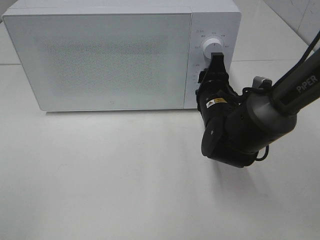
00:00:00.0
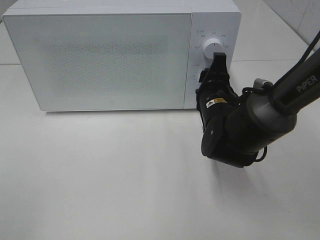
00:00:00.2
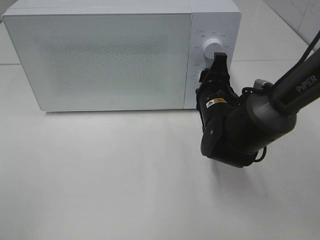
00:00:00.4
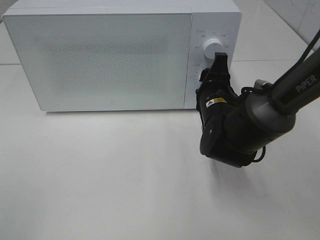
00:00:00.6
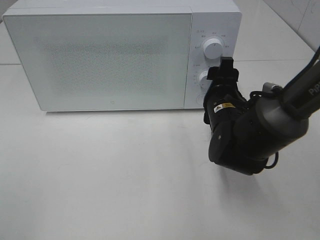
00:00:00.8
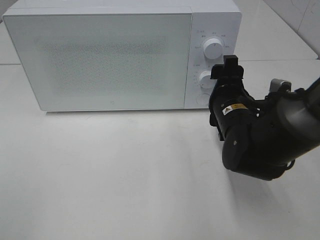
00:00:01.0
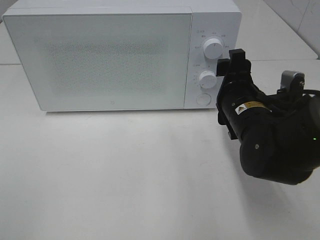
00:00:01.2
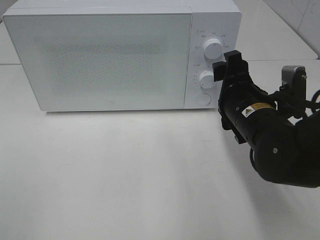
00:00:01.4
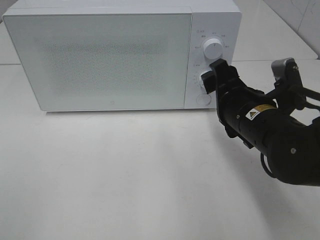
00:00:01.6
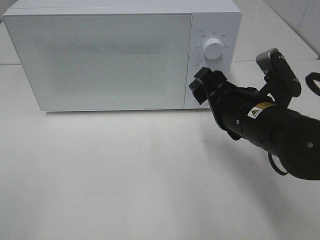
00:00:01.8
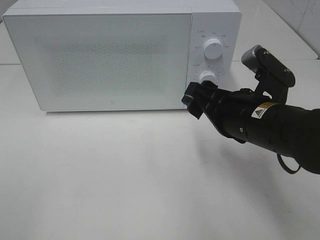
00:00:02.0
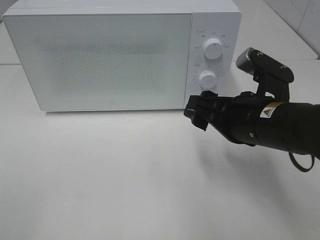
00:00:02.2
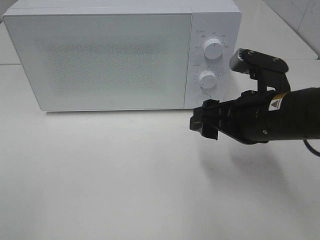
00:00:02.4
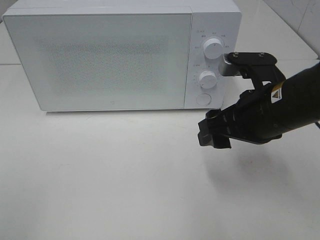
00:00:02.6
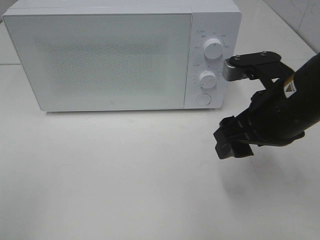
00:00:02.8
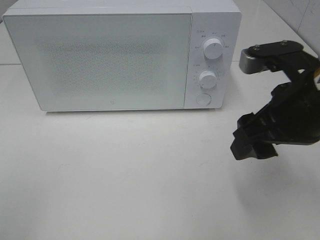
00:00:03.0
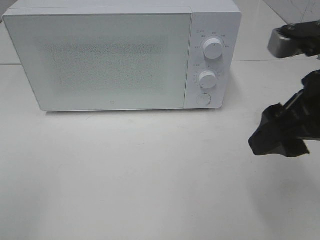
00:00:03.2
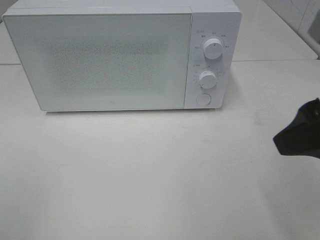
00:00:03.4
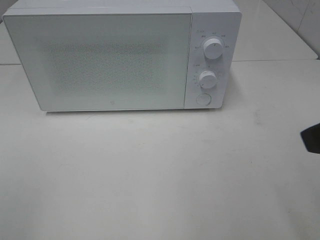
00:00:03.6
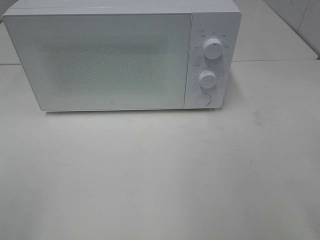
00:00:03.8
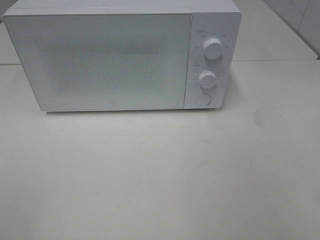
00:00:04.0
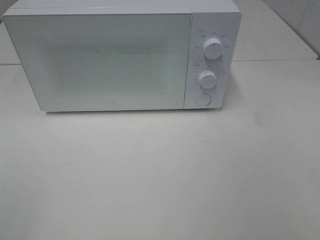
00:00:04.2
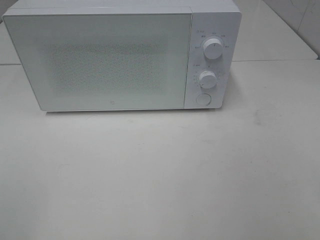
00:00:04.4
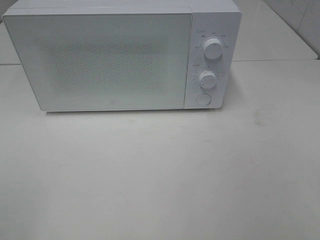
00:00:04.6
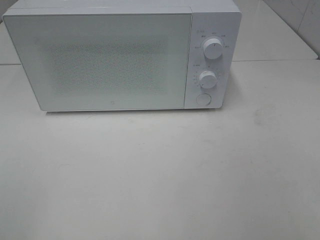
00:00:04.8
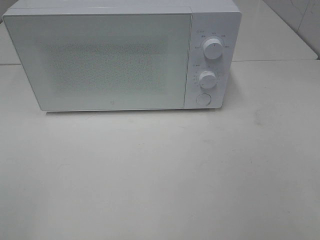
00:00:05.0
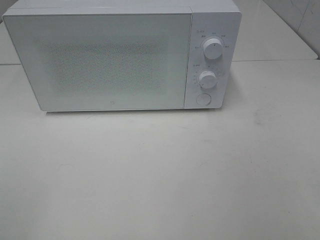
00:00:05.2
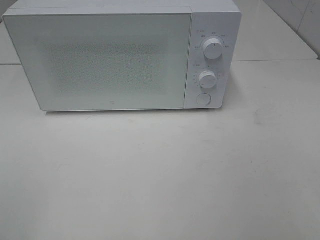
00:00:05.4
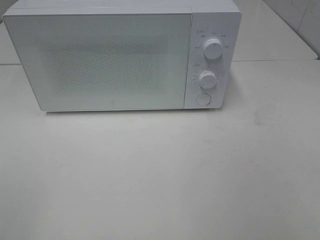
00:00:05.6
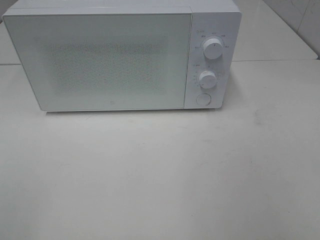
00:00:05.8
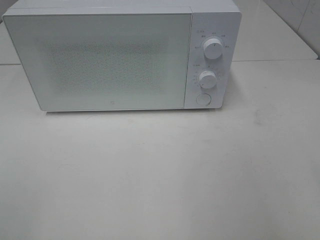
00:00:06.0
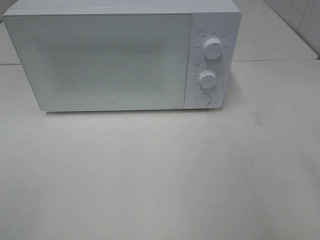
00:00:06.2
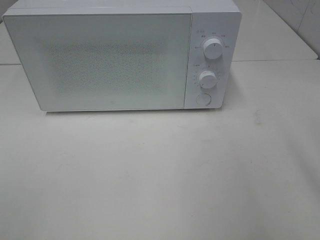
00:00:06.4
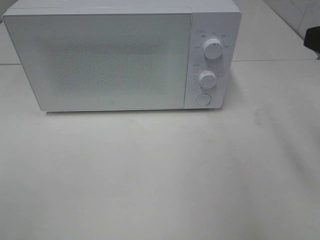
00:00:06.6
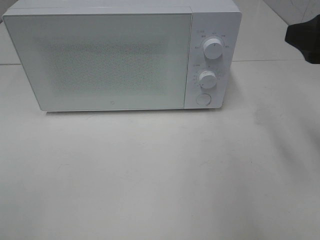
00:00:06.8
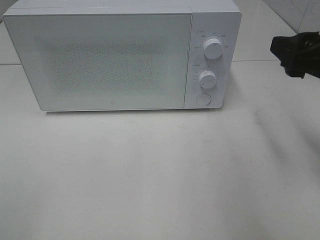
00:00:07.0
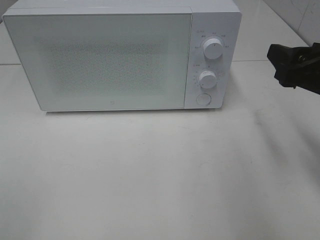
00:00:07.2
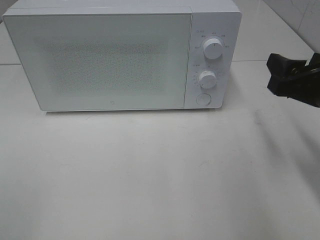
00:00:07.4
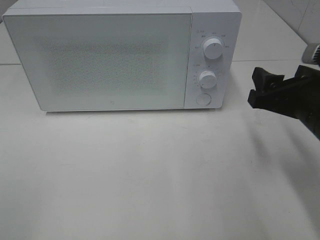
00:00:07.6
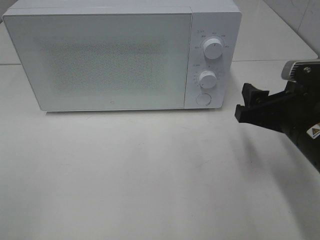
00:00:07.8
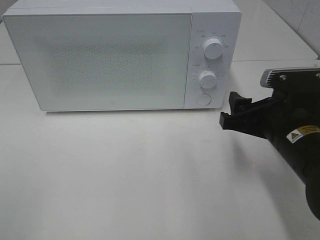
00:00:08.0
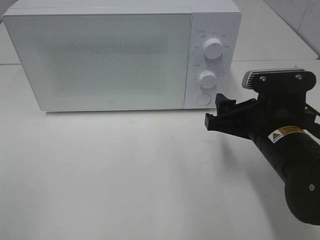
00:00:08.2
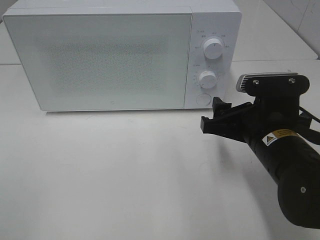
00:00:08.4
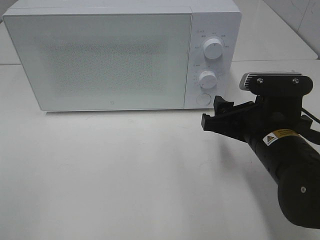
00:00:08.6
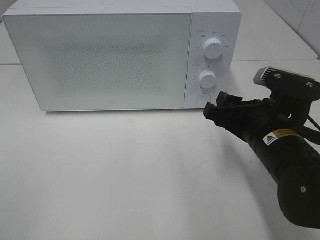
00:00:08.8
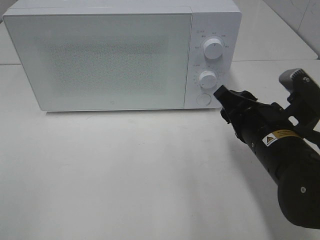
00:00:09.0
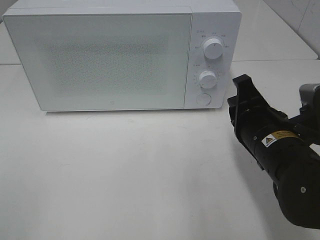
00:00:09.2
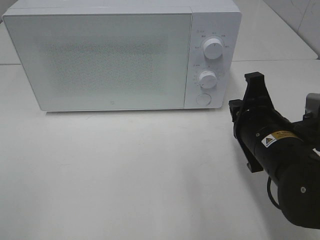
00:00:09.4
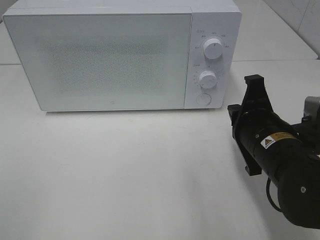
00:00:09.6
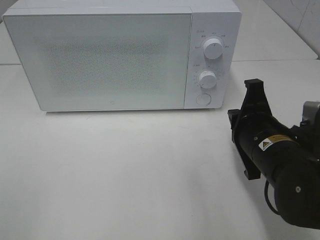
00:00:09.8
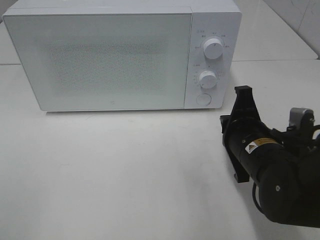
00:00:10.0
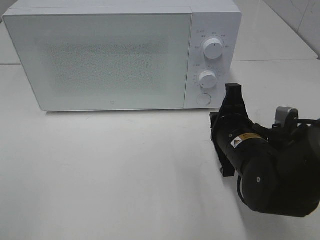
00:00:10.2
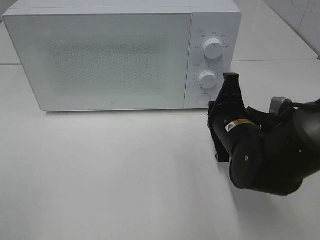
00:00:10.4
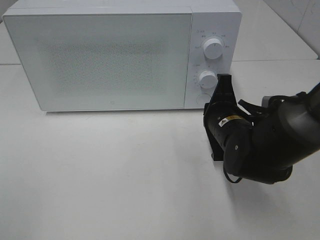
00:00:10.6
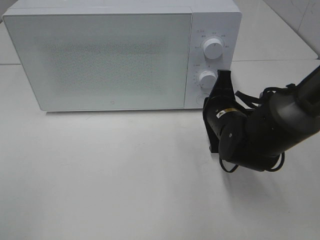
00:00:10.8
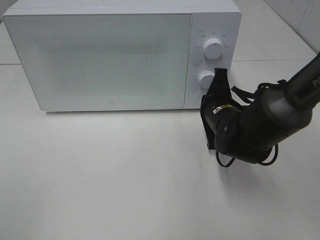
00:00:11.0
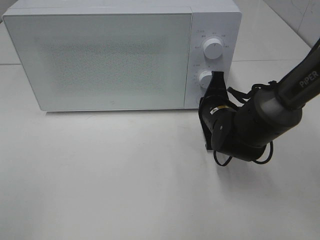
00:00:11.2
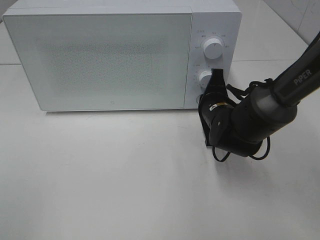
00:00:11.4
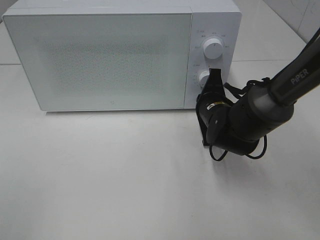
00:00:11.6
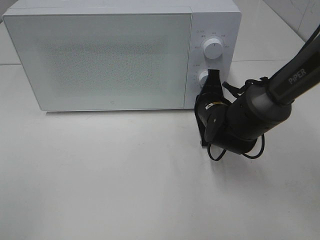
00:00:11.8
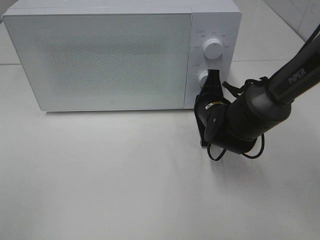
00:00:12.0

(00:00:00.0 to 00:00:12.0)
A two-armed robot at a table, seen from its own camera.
Task of the whole recording: Heat the burger.
00:00:00.0 - 00:00:01.6: The right gripper goes roughly 5 cm backward, and opens up.
00:00:01.6 - 00:00:03.0: The right gripper goes approximately 10 cm upward and backward.
00:00:03.0 - 00:00:04.4: The right gripper heads backward and to the right, covering some 25 cm.
00:00:06.0 - 00:00:07.6: The right gripper is displaced forward and downward by some 20 cm.
00:00:07.6 - 00:00:09.0: The right gripper moves to the left, about 5 cm.
00:00:09.0 - 00:00:10.4: The right gripper changes place by some 5 cm, and closes up.
00:00:10.4 - 00:00:12.0: The right gripper moves forward, approximately 10 cm.

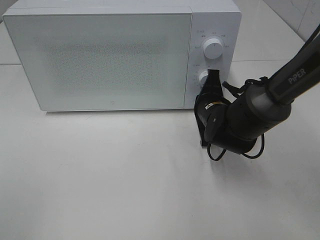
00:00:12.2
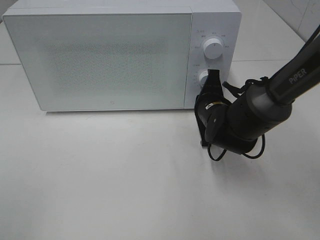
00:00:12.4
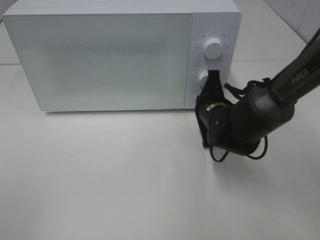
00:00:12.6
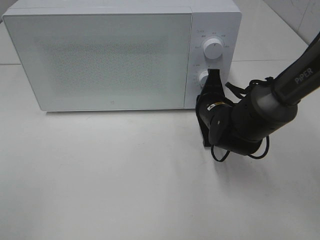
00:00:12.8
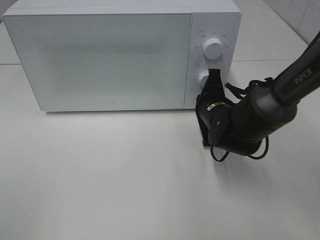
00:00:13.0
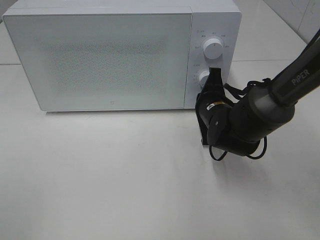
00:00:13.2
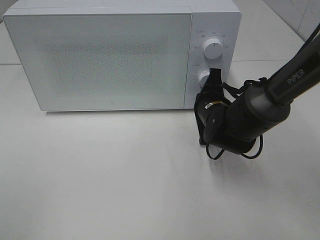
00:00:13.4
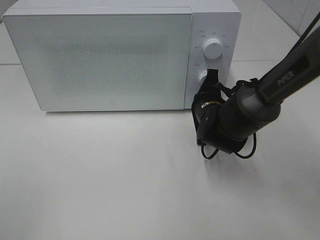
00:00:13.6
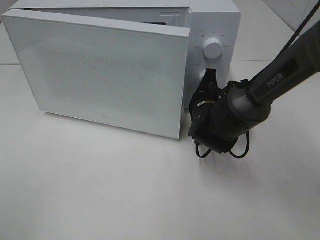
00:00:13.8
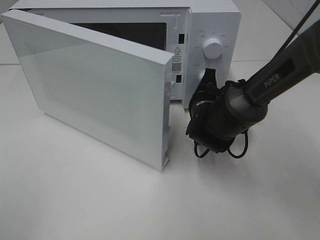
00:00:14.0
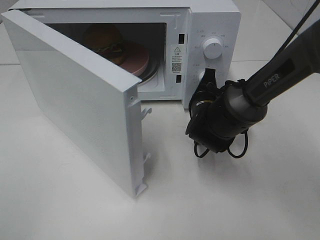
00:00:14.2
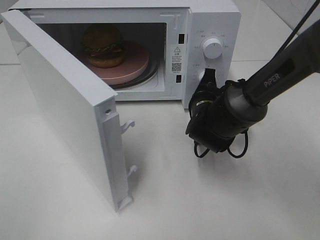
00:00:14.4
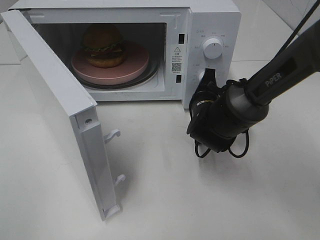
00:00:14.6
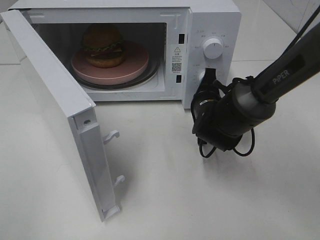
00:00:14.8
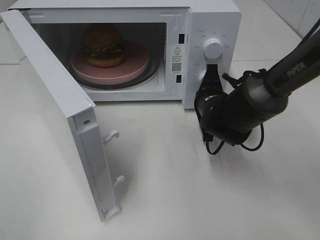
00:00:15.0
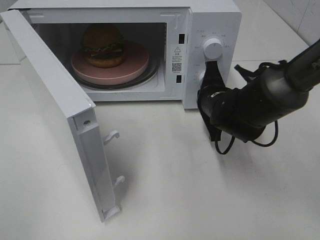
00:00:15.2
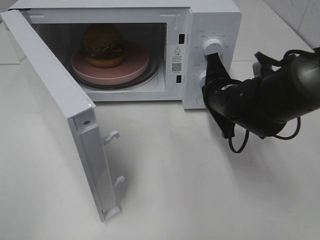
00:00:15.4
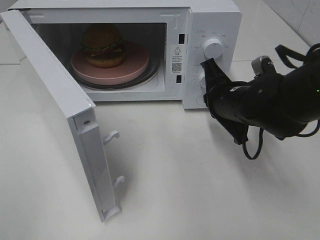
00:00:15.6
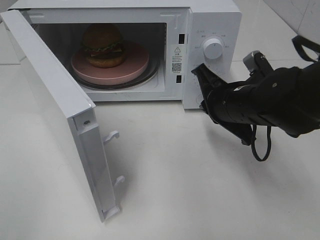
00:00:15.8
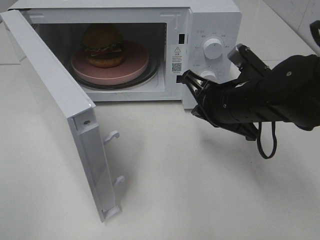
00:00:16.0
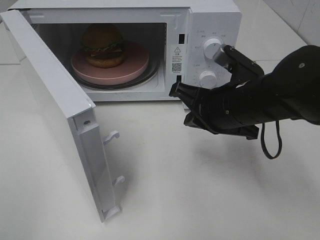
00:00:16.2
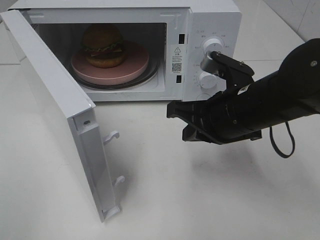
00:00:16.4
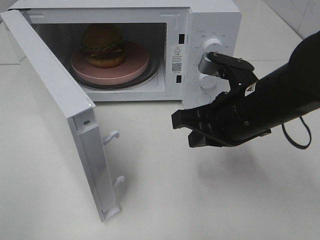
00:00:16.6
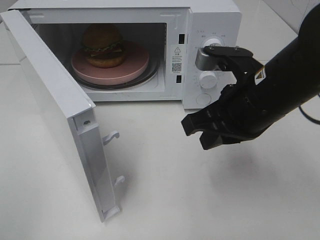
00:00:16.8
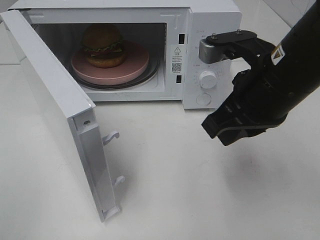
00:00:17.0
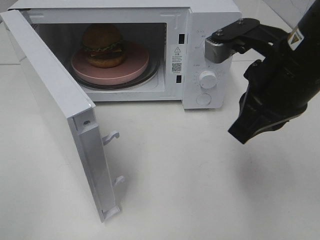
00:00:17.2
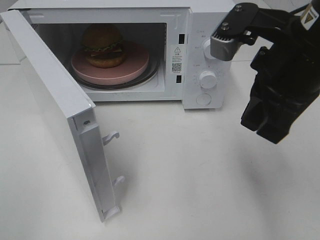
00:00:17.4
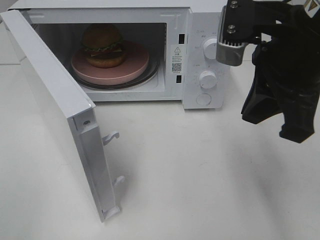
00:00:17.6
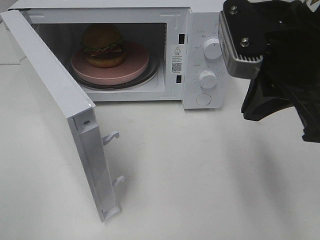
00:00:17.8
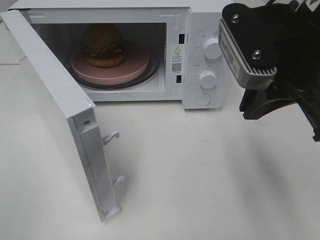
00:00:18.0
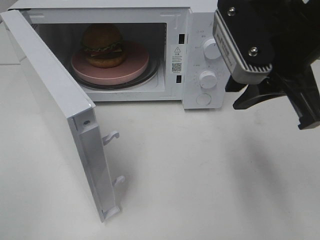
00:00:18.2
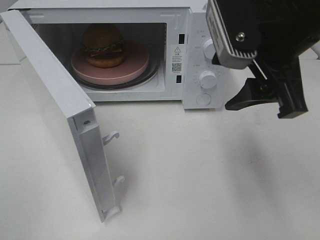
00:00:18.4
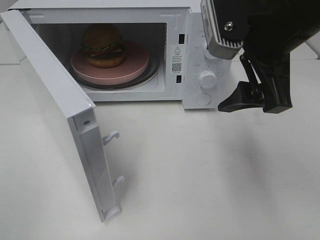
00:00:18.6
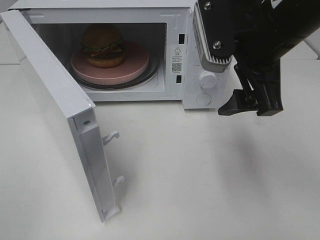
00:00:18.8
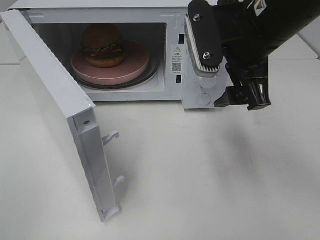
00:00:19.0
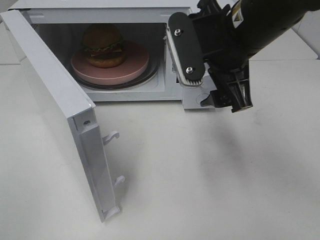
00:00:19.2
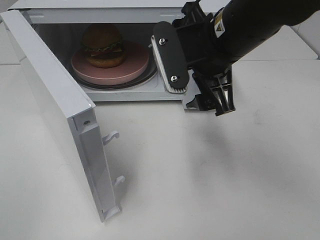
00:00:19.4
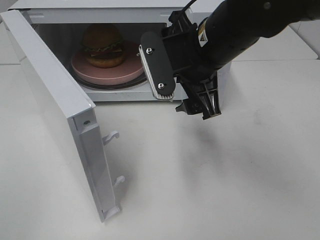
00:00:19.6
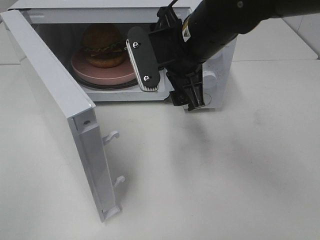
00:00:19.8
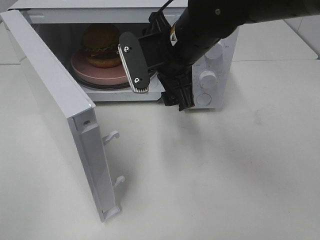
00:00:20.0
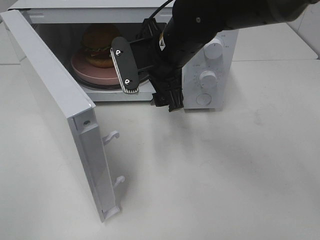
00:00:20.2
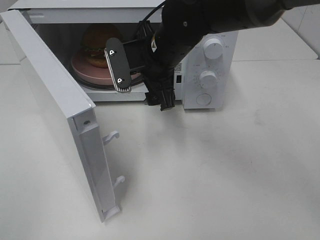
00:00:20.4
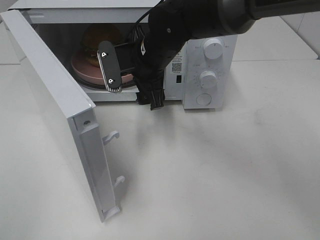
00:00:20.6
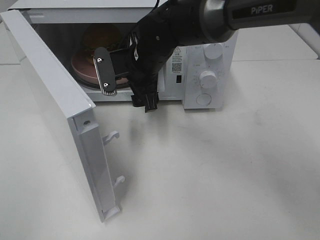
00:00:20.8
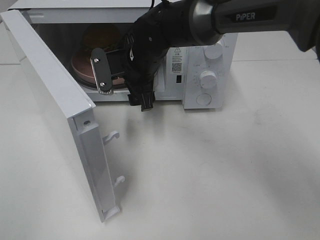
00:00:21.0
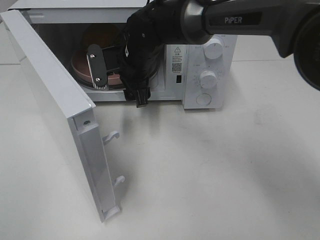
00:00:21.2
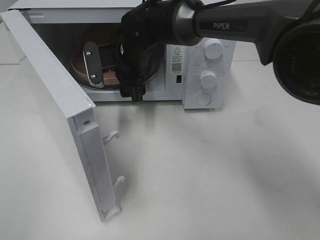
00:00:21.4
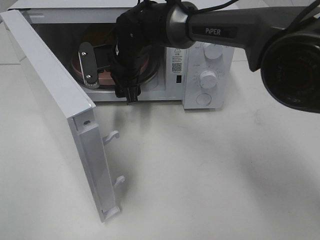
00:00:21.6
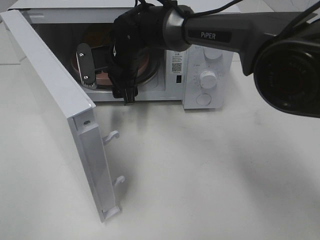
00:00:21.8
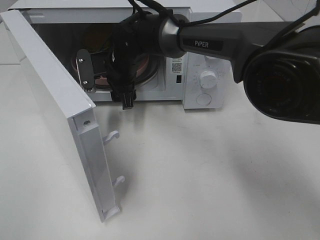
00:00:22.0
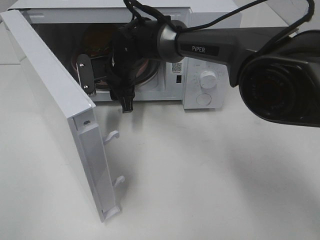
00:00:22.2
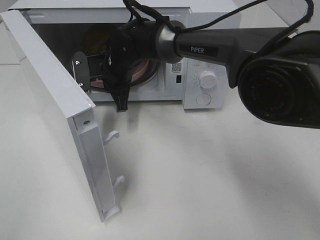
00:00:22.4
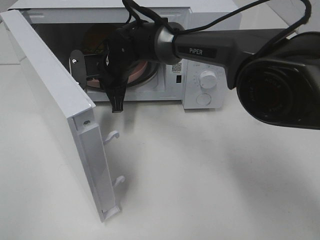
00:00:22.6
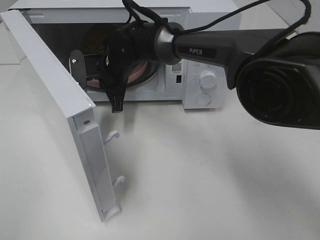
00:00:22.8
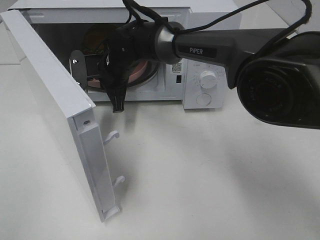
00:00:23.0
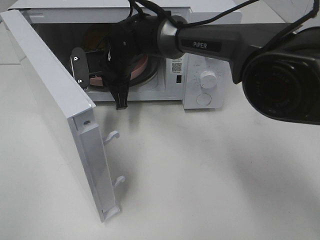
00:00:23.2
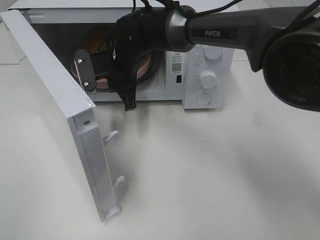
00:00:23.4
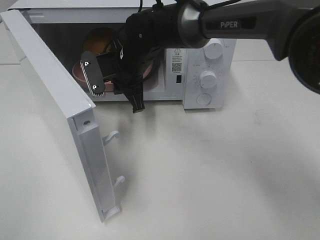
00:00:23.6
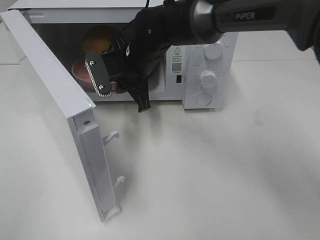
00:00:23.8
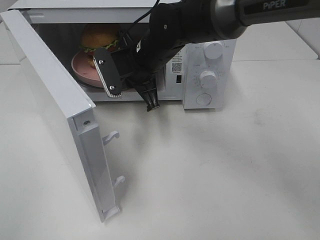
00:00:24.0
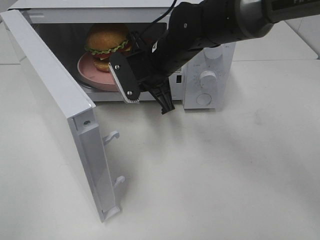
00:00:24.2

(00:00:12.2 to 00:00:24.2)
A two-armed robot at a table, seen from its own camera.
Task of the whole recording: Heat the burger.
Step, 00:00:12.2 - 00:00:15.6: Right hand: press the switch.
Step, 00:00:15.8 - 00:00:22.6: Right hand: grab the plate with the hamburger.
00:00:12.2 - 00:00:13.8: There are only small adjustments of the grippers.
00:00:15.2 - 00:00:16.6: The right gripper goes some 15 cm backward and upward.
00:00:16.6 - 00:00:18.2: The right gripper moves upward, about 10 cm.
00:00:18.2 - 00:00:19.8: The right gripper travels to the left, forward and downward by about 15 cm, and opens.
00:00:19.8 - 00:00:21.2: The right gripper moves forward, to the left and downward, some 15 cm.
00:00:21.2 - 00:00:22.6: The right gripper shifts by roughly 5 cm, and closes up.
00:00:22.6 - 00:00:24.2: The right gripper goes approximately 10 cm to the right, backward and upward.
